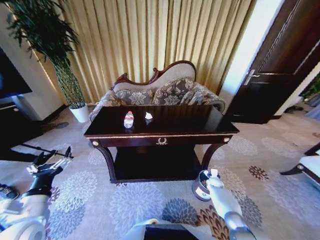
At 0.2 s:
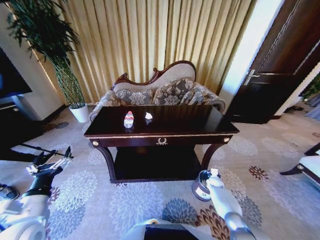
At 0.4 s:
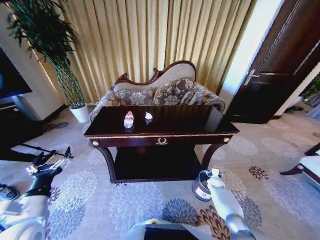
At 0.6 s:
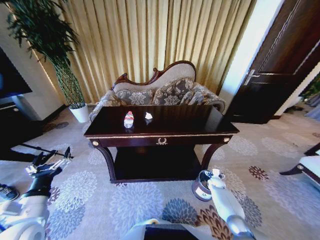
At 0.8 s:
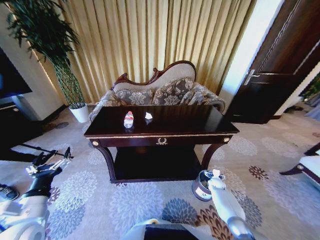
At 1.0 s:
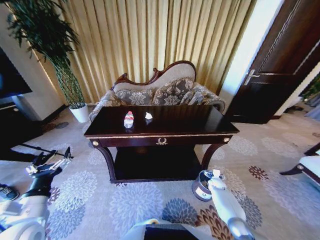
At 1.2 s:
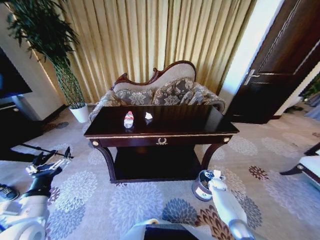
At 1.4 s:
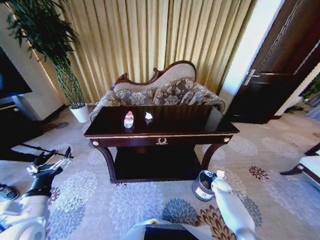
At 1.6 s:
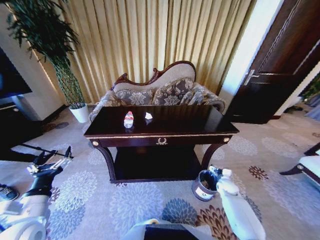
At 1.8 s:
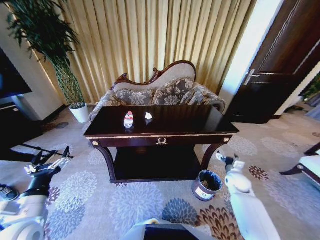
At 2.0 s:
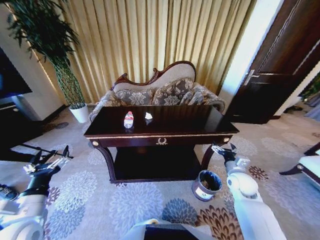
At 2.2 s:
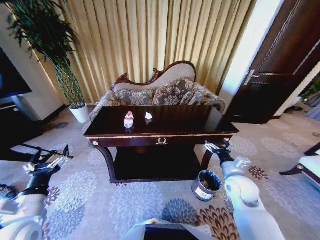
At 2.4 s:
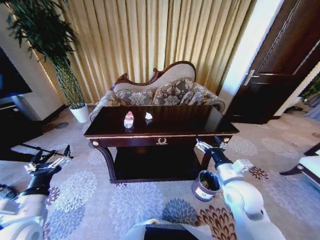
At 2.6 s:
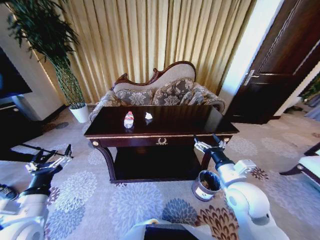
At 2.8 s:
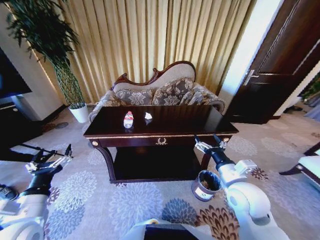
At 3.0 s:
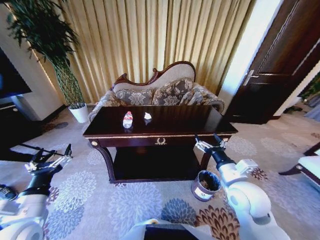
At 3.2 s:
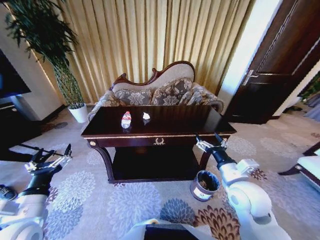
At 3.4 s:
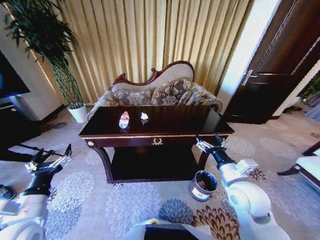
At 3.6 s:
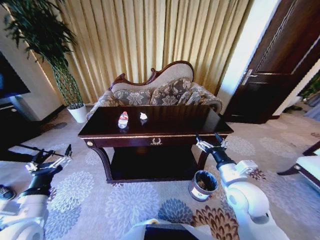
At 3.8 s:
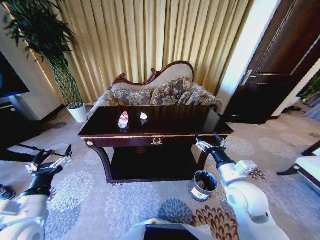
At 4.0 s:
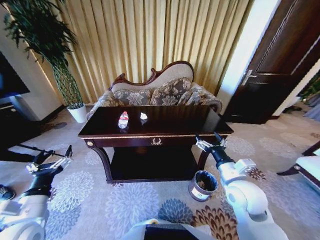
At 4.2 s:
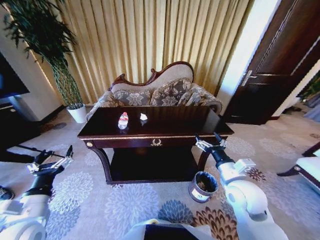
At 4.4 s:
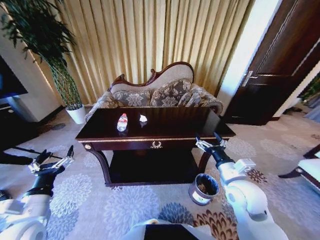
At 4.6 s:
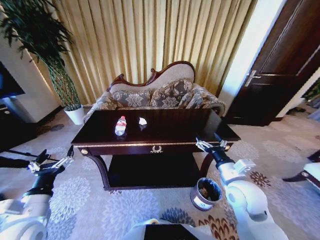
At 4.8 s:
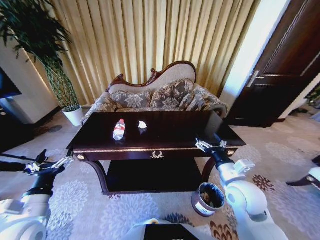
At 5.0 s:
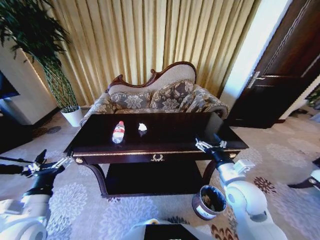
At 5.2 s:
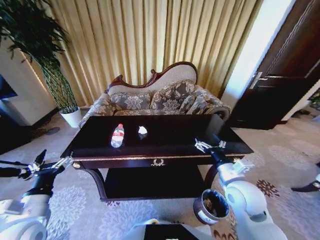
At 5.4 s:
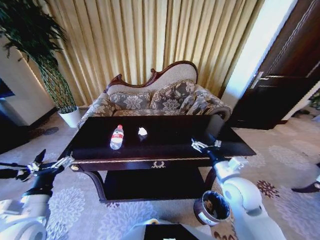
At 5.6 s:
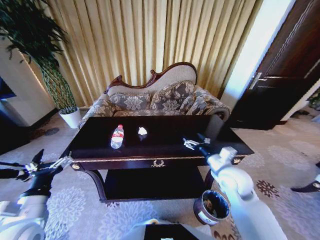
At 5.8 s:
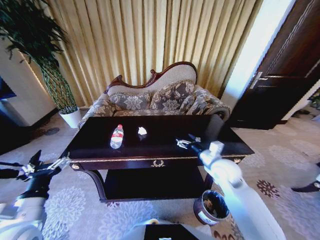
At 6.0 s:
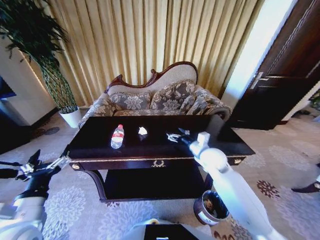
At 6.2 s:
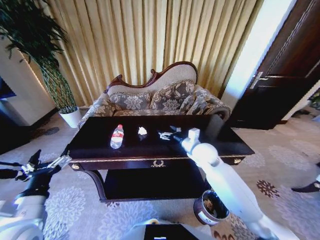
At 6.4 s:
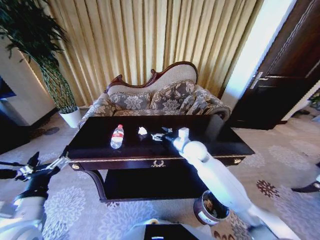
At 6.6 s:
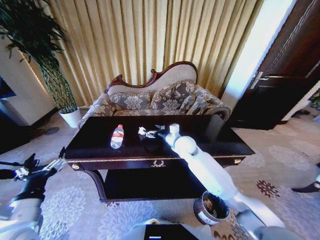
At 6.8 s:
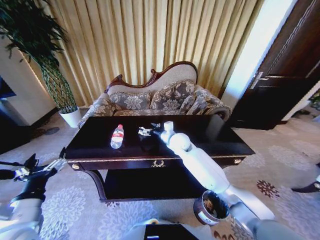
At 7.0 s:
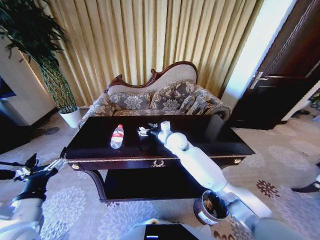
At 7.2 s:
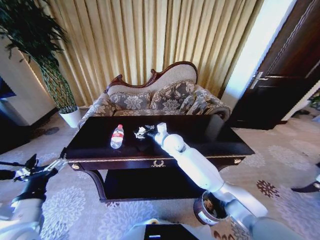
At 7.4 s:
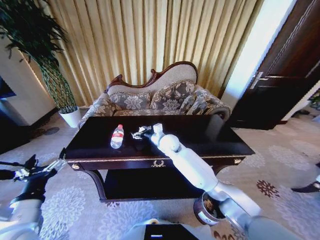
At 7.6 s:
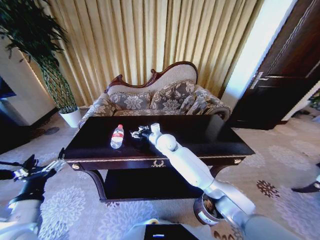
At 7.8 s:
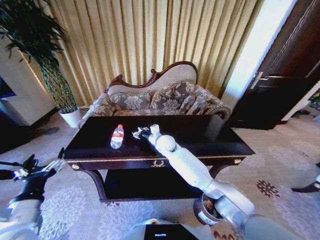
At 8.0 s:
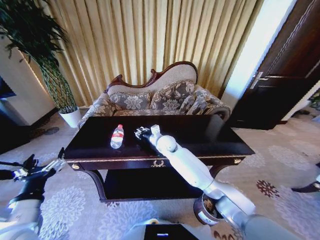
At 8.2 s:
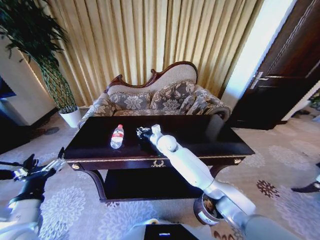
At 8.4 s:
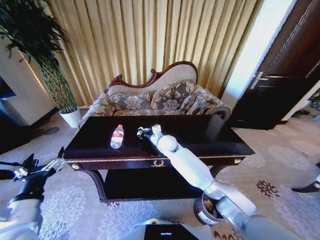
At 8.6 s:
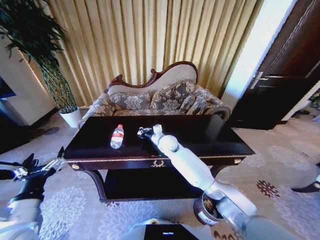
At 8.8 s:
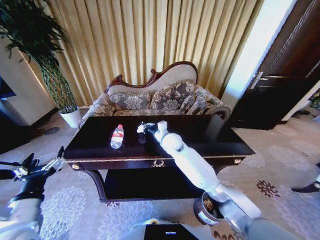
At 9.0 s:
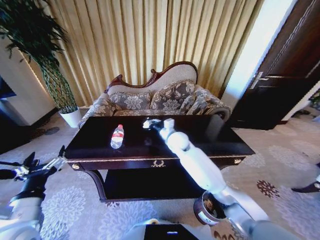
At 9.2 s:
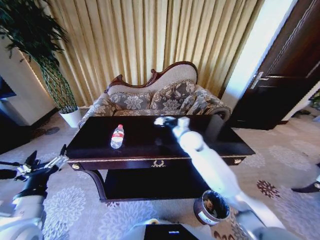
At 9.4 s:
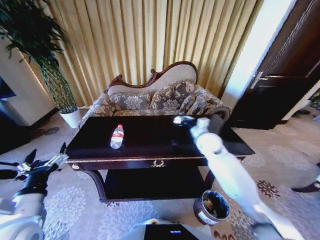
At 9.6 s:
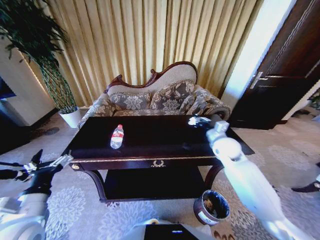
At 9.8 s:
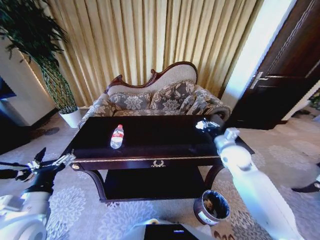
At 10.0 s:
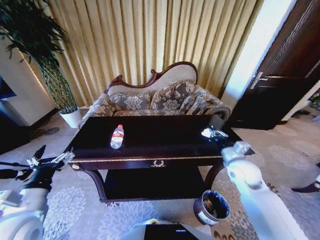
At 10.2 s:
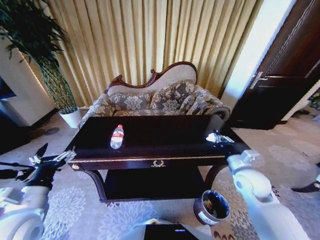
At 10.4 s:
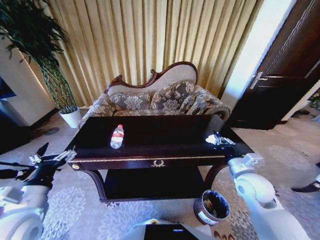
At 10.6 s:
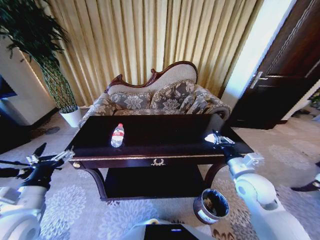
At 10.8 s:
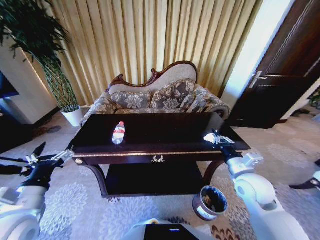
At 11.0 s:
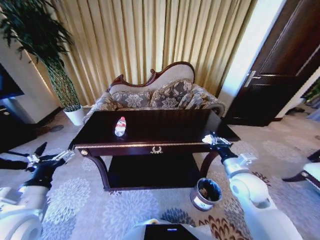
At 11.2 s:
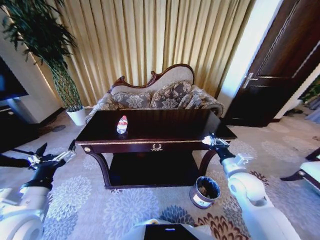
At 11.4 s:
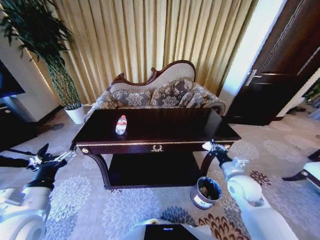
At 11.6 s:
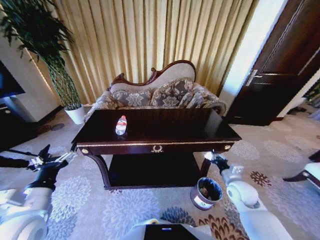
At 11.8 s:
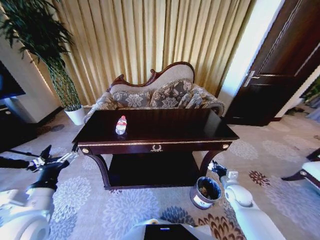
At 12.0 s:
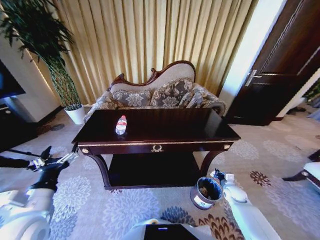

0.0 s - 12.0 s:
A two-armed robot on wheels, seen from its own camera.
Task of the whole recording: Move to the front of the table and place the trash on the table into the trash bin.
0.0 s - 1.6 s: The right gripper goes about 10 cm upward, and opens.
1.6 s - 3.0 s: The right gripper moves upward, to the left and backward, some 35 cm.
4.4 s - 6.0 s: The right gripper travels forward by about 15 cm.
6.0 s - 7.6 s: The right gripper heads to the left and forward, covering roughly 20 cm.
7.6 s - 9.0 s: The right gripper moves to the right, some 5 cm, and closes its fingers.
9.0 s - 10.4 s: The right gripper heads to the right and backward, covering approximately 30 cm.
10.4 s - 12.0 s: The right gripper shifts roughly 25 cm downward and to the right.

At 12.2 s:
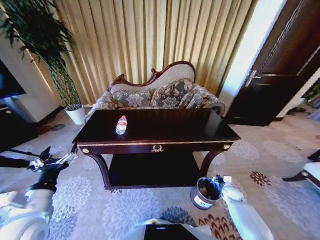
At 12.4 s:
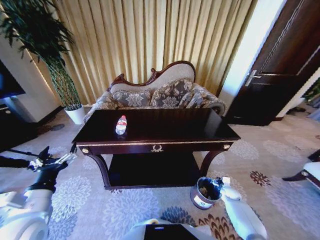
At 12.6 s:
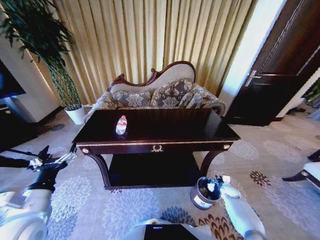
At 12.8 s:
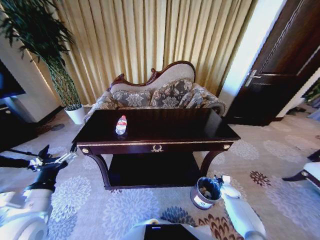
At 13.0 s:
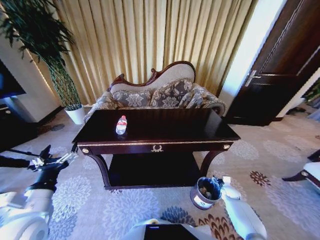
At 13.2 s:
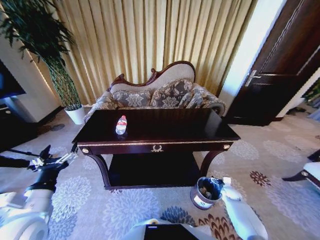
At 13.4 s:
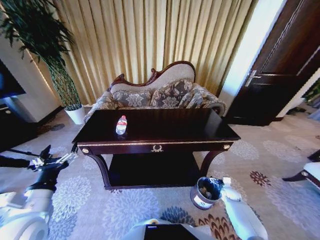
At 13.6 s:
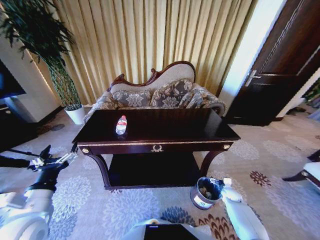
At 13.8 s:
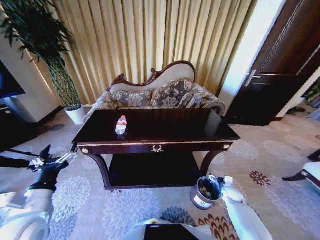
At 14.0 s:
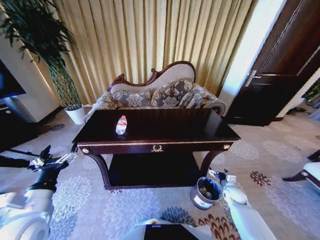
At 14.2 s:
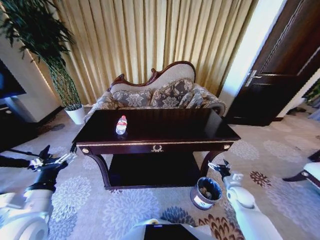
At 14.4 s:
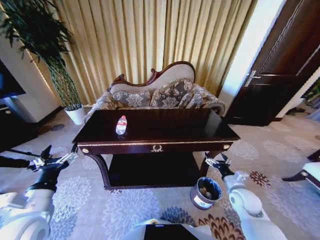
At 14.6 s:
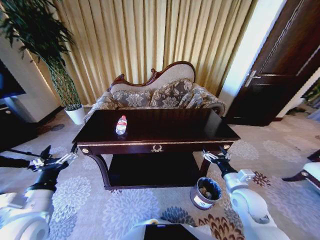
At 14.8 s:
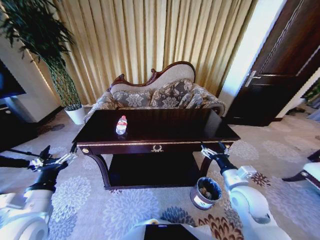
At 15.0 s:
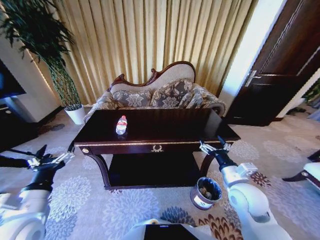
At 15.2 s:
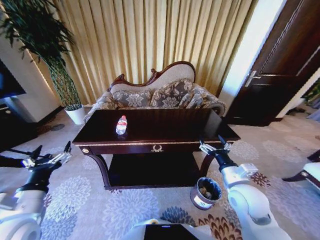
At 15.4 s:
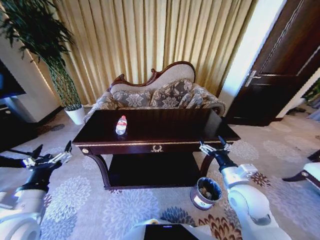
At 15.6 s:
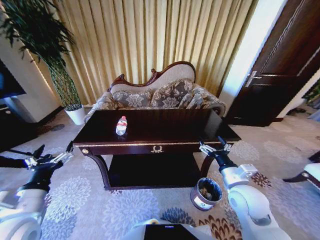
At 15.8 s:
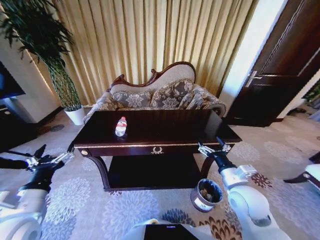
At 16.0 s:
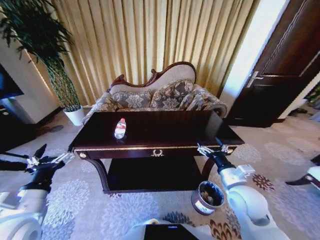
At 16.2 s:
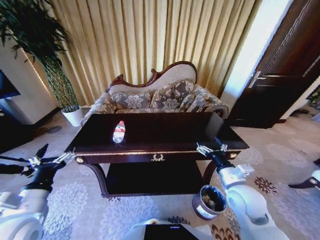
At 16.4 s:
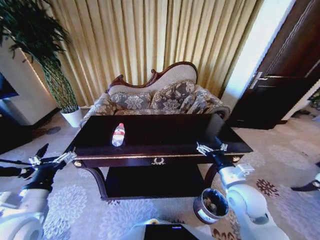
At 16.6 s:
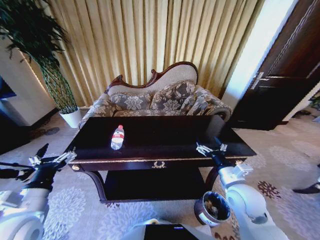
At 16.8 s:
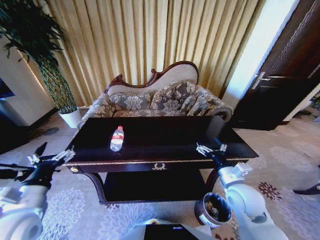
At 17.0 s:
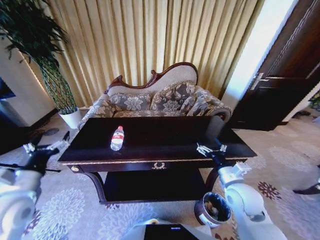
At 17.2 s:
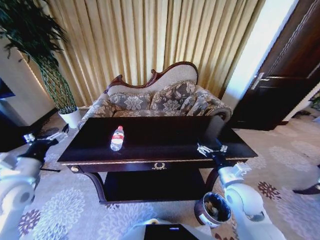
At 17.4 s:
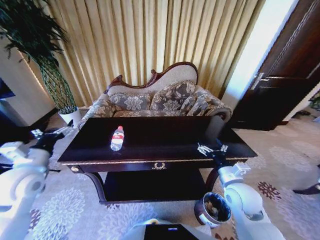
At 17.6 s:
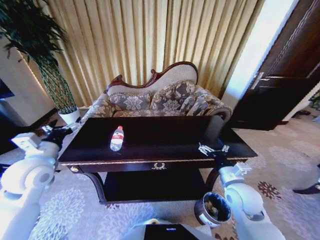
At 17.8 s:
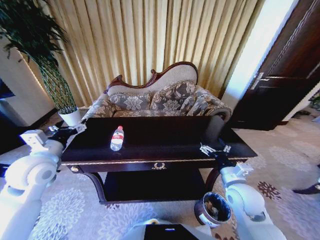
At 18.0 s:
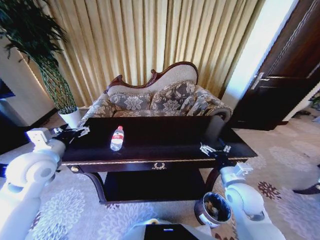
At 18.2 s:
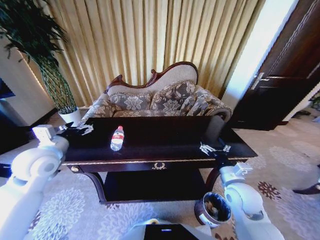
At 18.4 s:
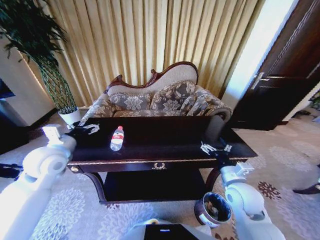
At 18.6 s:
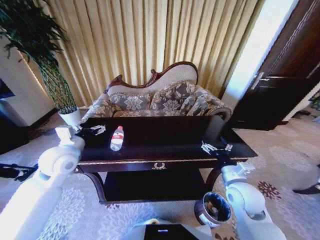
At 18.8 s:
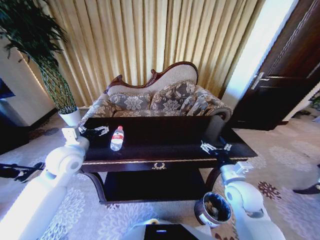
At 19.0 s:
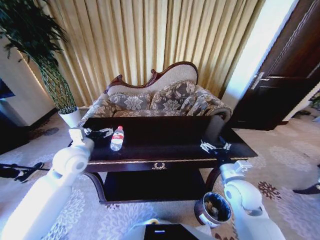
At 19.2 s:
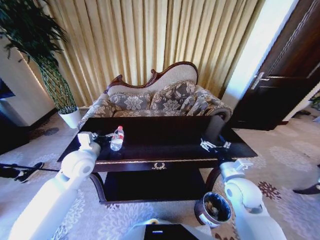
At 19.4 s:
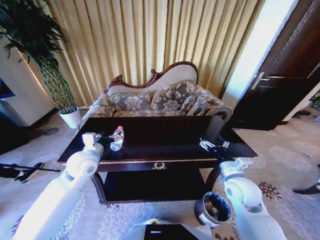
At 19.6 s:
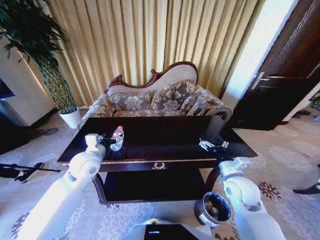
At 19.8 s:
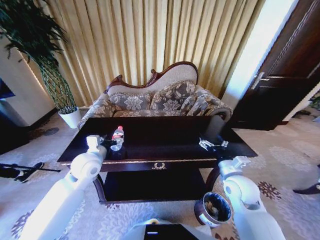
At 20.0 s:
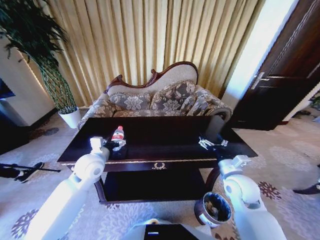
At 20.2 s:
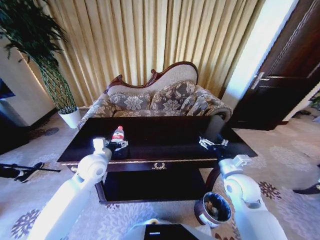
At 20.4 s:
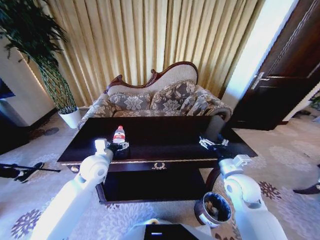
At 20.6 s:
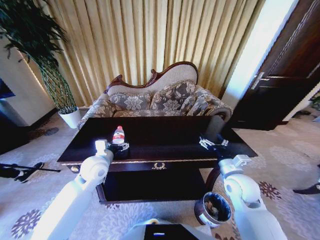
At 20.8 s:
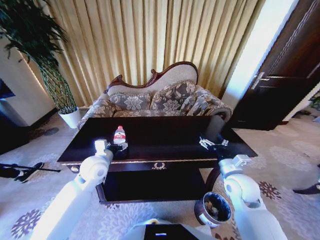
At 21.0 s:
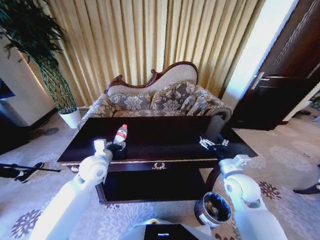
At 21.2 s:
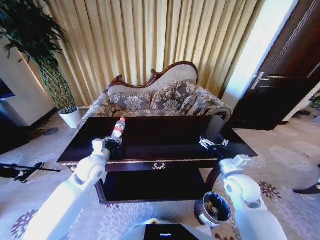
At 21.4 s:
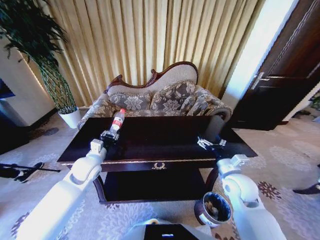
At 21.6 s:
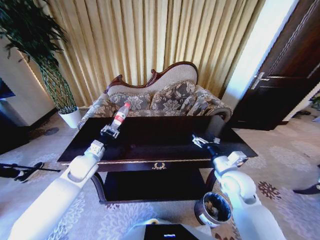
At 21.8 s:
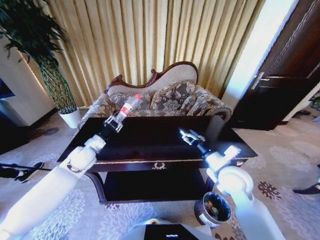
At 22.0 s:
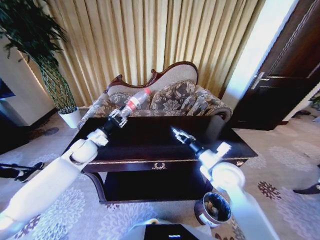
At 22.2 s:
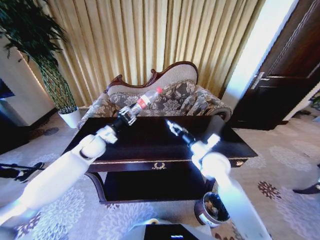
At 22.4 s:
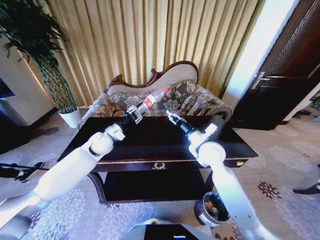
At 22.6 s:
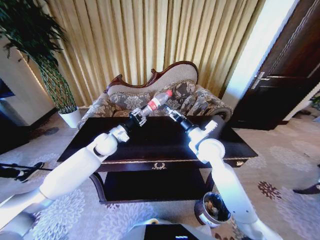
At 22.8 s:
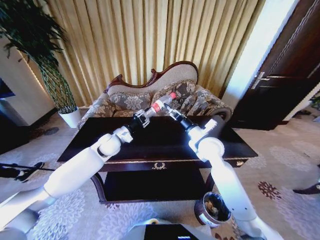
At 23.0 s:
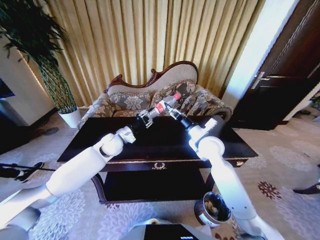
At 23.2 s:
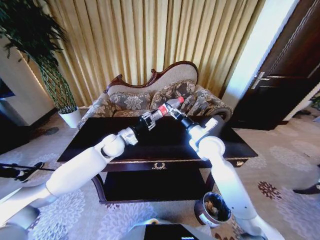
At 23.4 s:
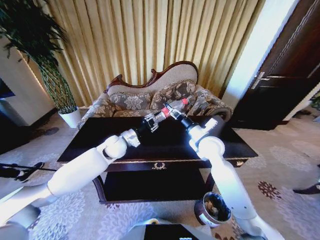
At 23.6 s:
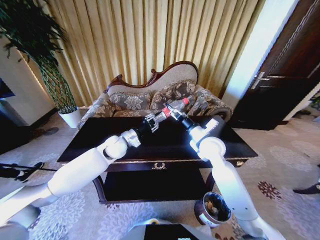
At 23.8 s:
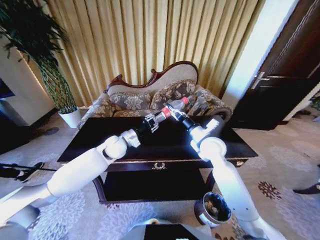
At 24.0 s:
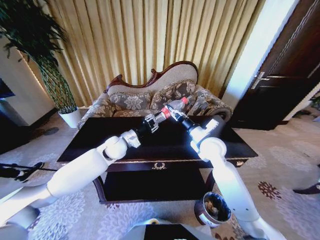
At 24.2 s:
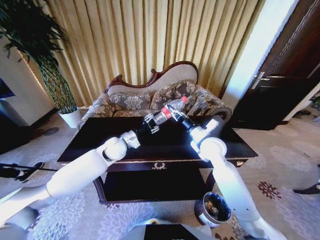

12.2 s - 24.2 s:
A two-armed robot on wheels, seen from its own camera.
Task of the whole recording: Move to the front of the table and place the trash on the table into the trash bin.
12.2 s - 13.8 s: The right gripper opens up.
13.8 s - 15.2 s: The right gripper shifts some 35 cm upward and to the left.
16.6 s - 18.2 s: The left gripper heads forward and upward, covering roughly 15 cm.
18.2 s - 19.8 s: The left gripper heads to the right and downward, covering some 15 cm.
19.8 s - 21.2 s: The left gripper closes.
21.2 s - 22.6 s: The right gripper is displaced forward, to the left and upward by approximately 15 cm; the left gripper is displaced forward by some 10 cm.
22.6 s - 24.2 s: The left gripper changes place by approximately 5 cm; the right gripper closes.
